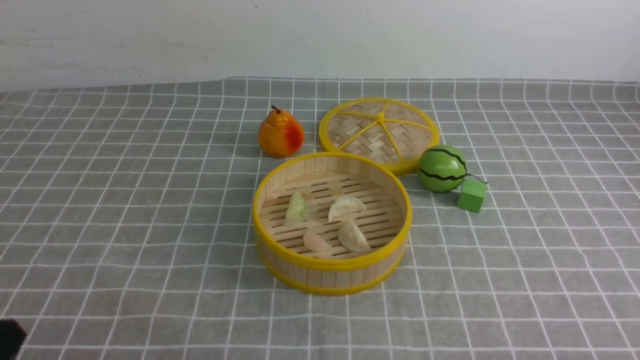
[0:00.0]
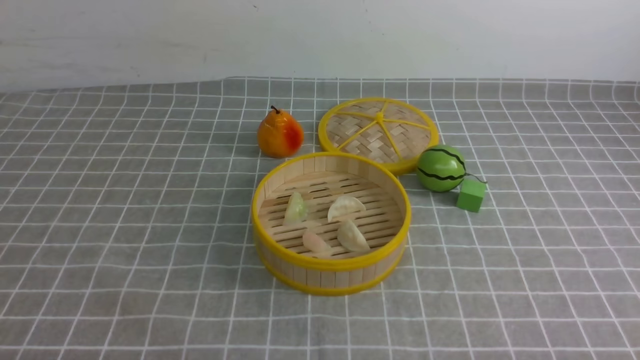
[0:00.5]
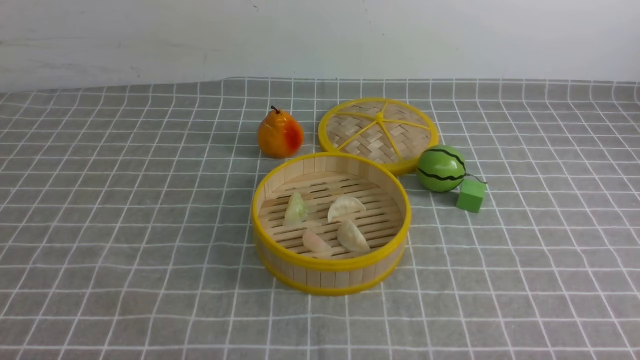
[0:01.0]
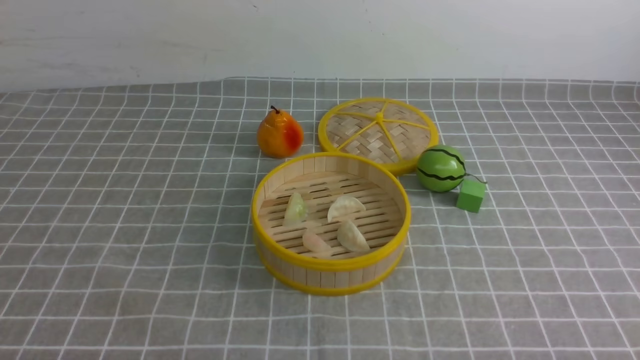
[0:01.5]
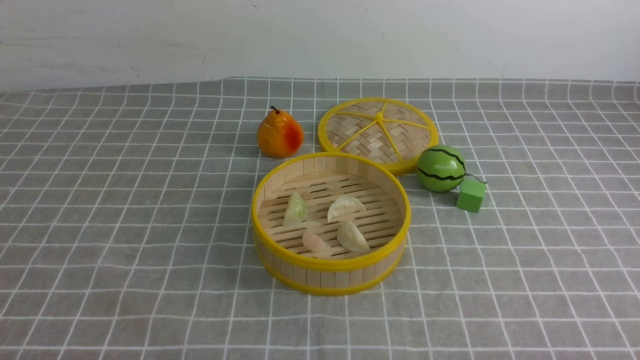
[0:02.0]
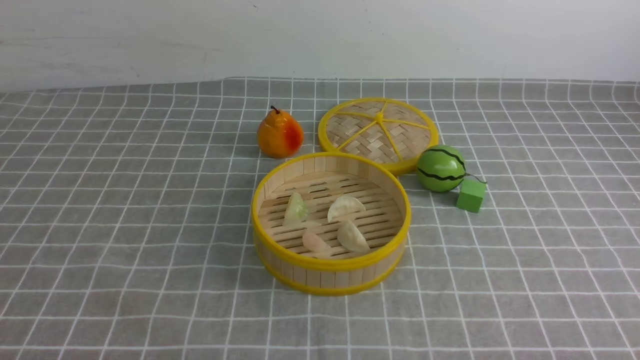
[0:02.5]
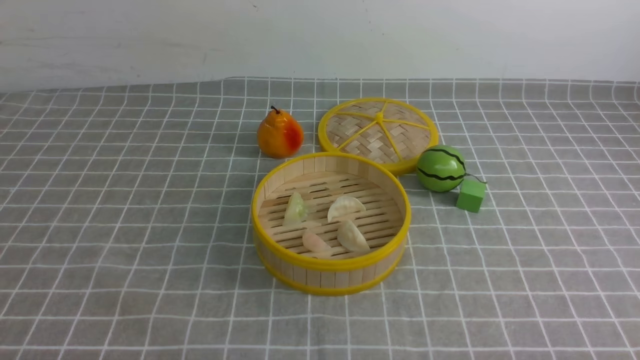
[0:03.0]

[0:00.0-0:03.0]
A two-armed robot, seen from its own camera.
Task of the whole recording: put the dumplings into the steamer on the table with the grey tablecloth.
0:01.5 to 0:03.0: Neither gripper changes place.

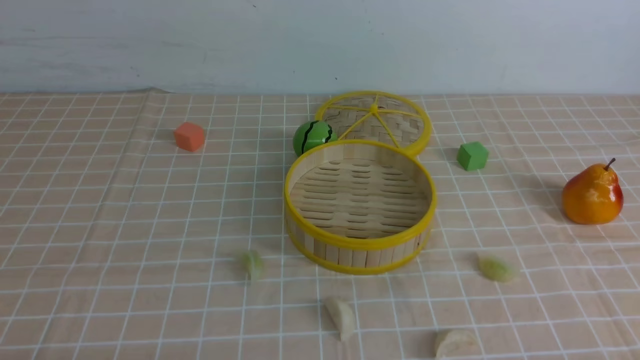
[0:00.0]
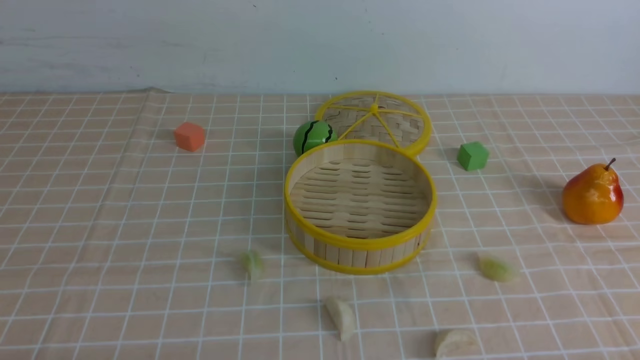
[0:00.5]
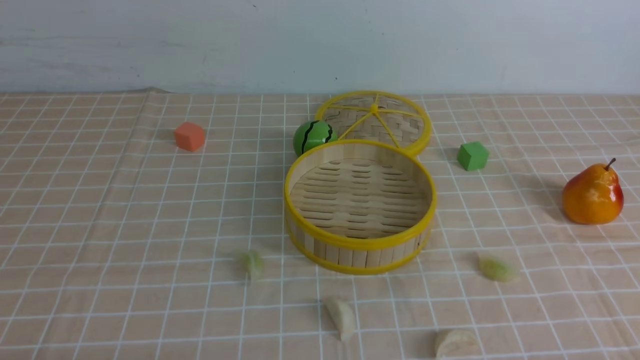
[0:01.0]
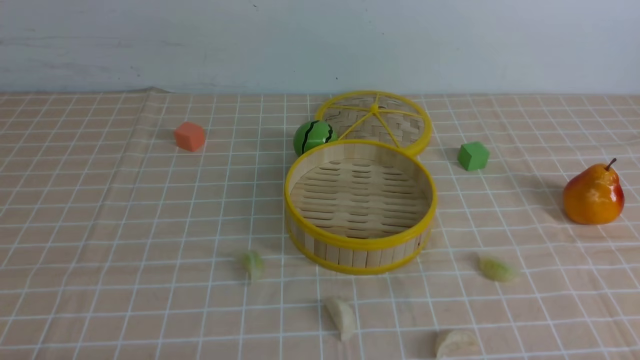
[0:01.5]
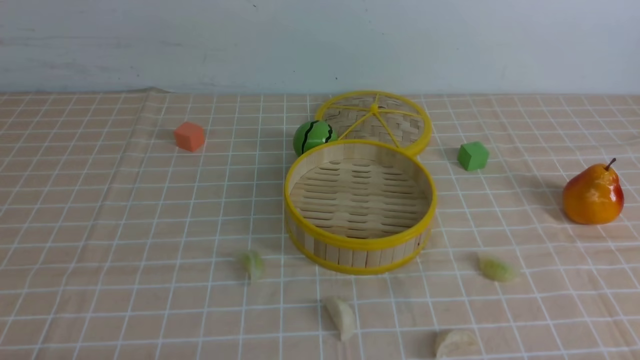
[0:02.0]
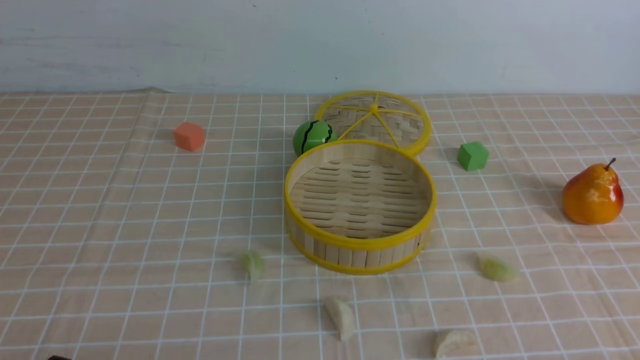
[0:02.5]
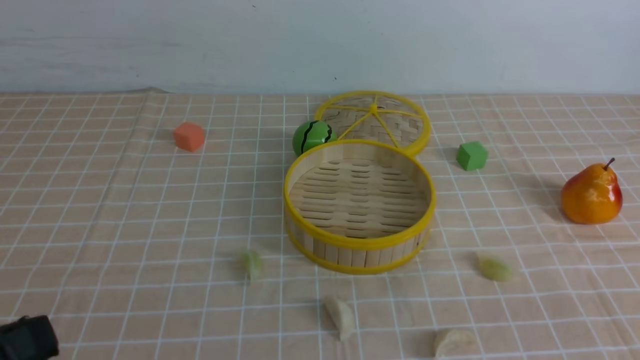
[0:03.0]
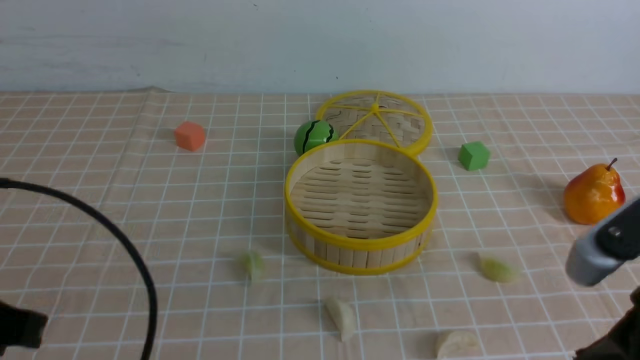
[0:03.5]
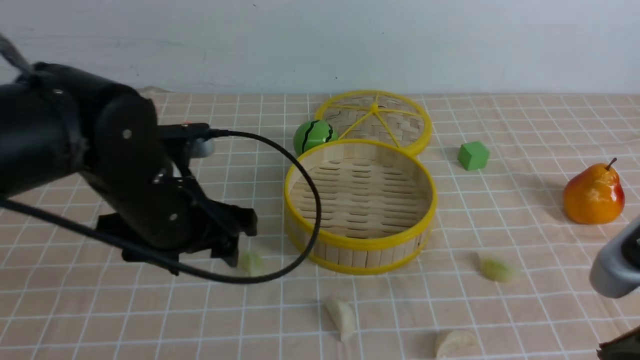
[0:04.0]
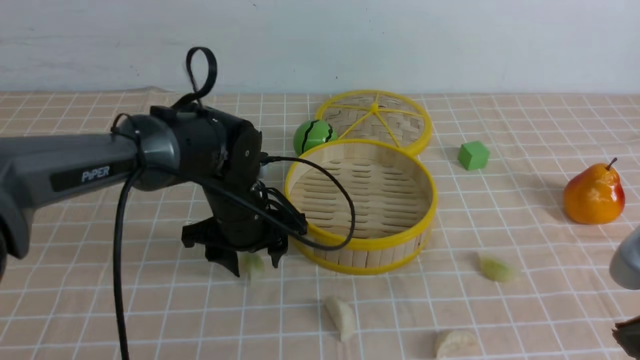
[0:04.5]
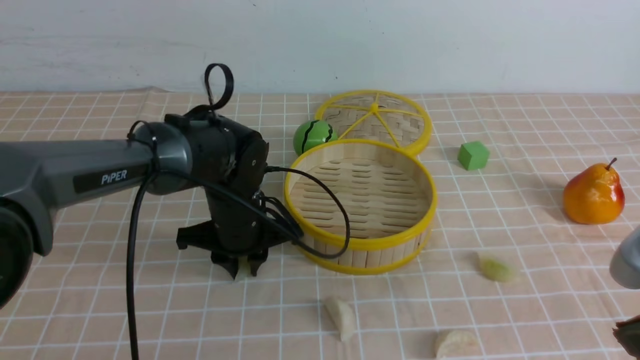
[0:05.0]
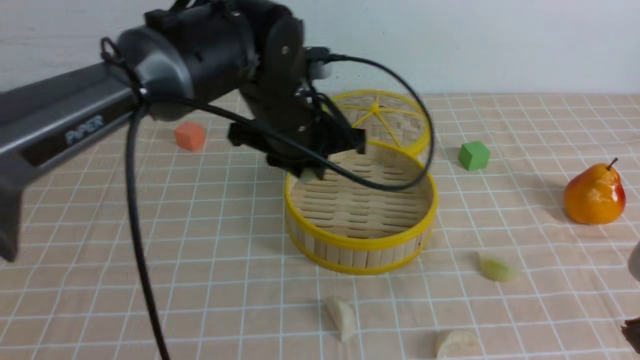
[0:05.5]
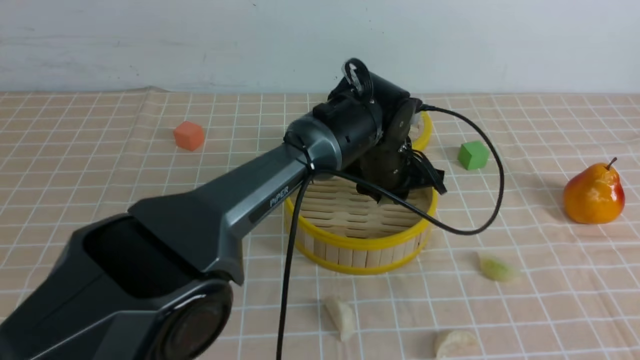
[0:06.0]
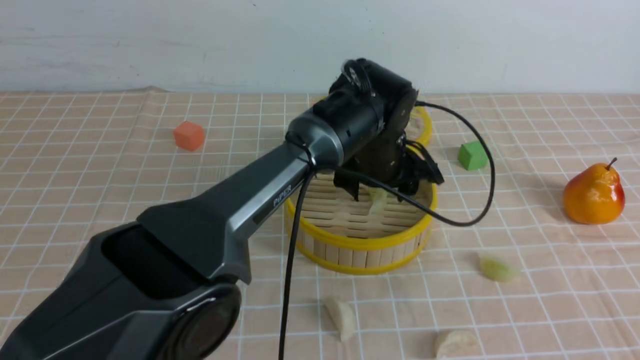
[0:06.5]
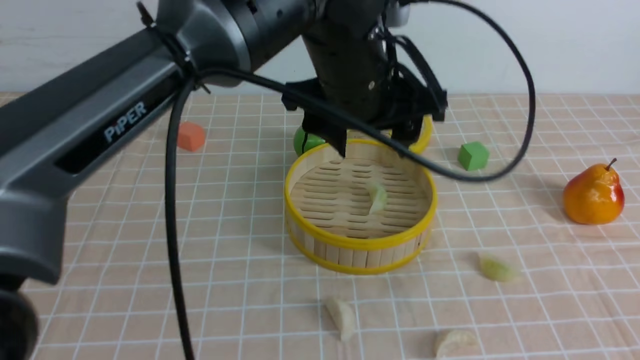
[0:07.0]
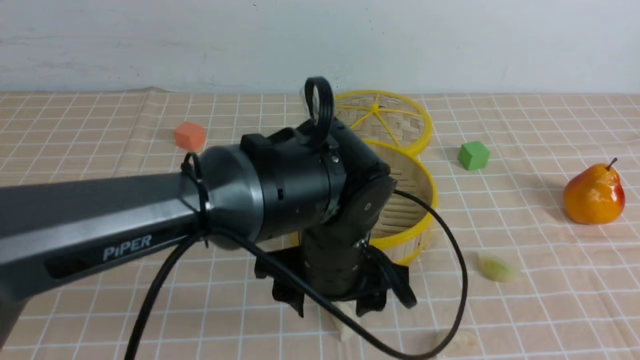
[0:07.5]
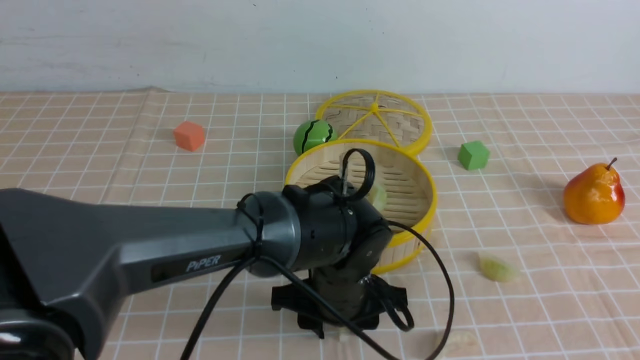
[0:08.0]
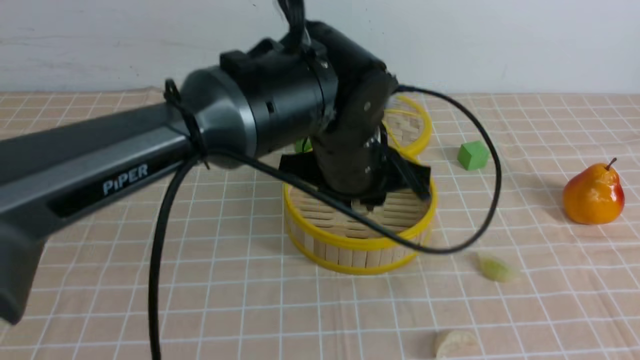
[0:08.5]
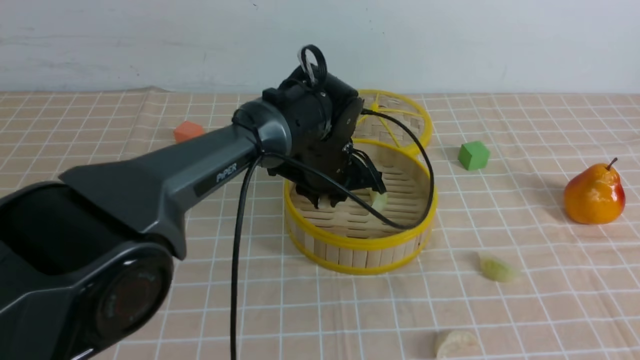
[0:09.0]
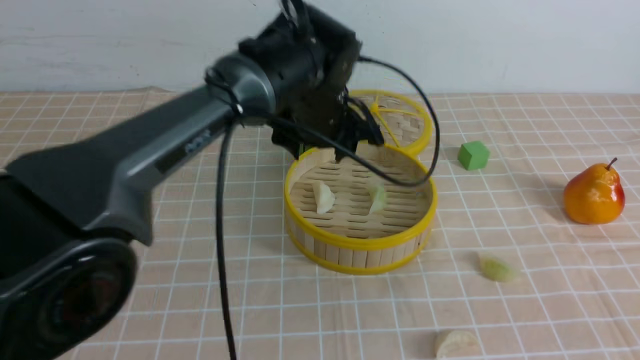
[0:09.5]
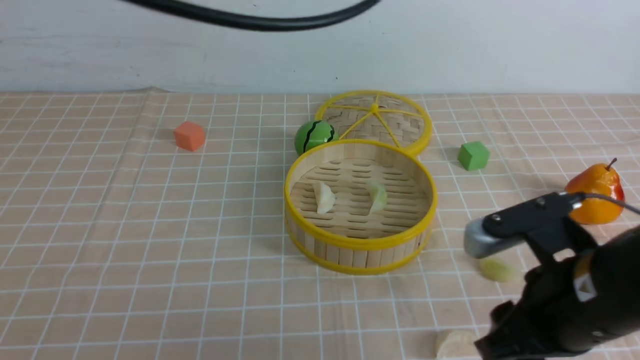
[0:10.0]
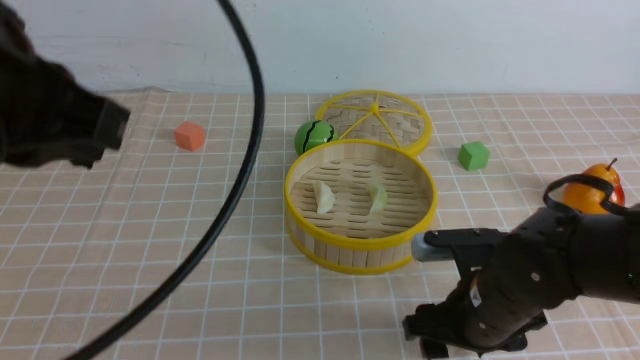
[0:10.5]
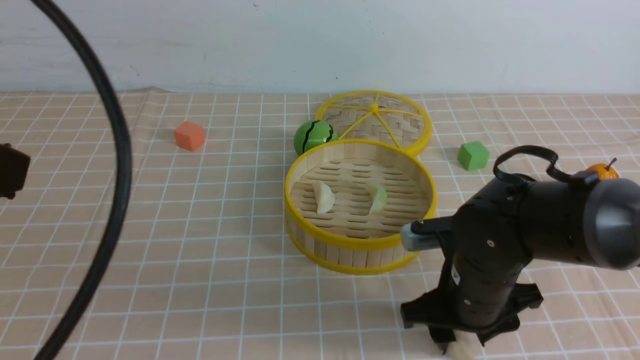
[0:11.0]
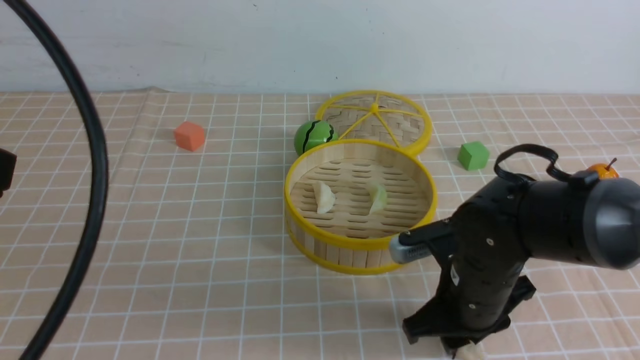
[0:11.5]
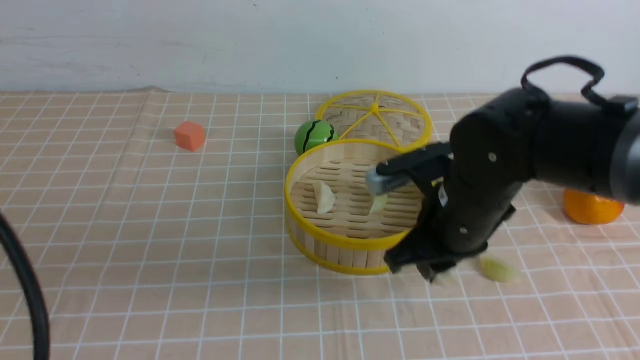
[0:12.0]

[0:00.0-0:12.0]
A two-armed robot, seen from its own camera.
Task of the whole recording: put the dumplings into the steamer on the table with the brown tablecloth.
Step, 0:00.0 to 0:04.5: use the left arm to grab a dumpling.
Step, 0:05.0 to 0:06.5: use the left arm to put the dumpling into the steamer.
Step, 0:07.0 to 0:08.0: use the left arm to grab a dumpling.
Step, 0:08.5 to 0:09.0: use the left arm to put the dumpling into the steamer.
Step, 0:09.5 to 0:11.5: use the right arm to grab a dumpling.
0:02.0 to 0:04.0: The left gripper travels forward, to the right and upward by approximately 30 cm, and opens. Meanwhile the right gripper shifts about 20 cm upward, to the left and forward, and closes.
0:04.0 to 0:06.0: The left gripper heads to the right and forward, covering some 25 cm, and closes up, while the right gripper heads backward, covering approximately 5 cm.
0:06.0 to 0:08.0: The left gripper goes some 15 cm backward, goes upward and returns, some 15 cm each way, and opens, then closes once more.
0:08.0 to 0:10.0: The right gripper heads forward, downward and to the left, covering some 20 cm, and opens. Meanwhile the left gripper swings up and down, approximately 30 cm each way, with 2 reversals, and closes.
0:10.0 to 0:12.0: The right gripper goes some 15 cm forward and to the left, and closes up. The left gripper is displaced backward, to the left and downward by approximately 25 cm.

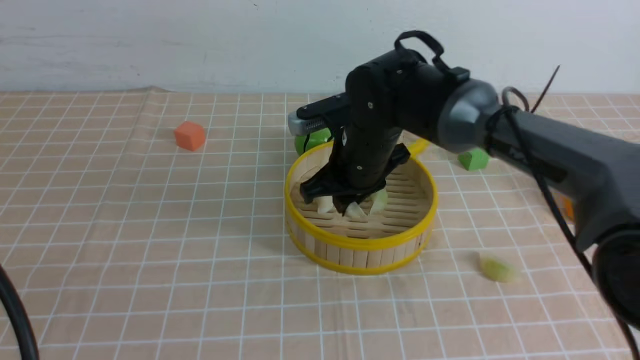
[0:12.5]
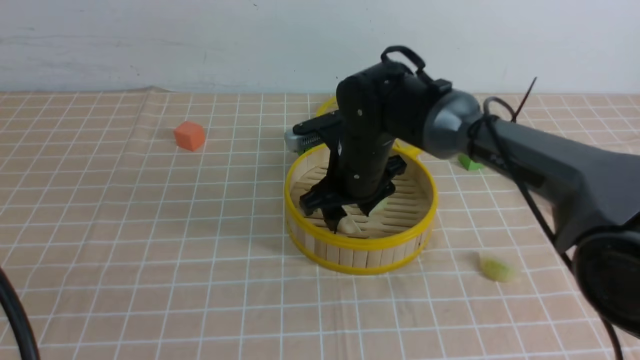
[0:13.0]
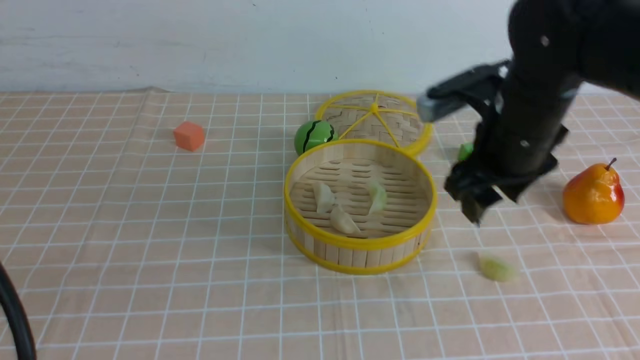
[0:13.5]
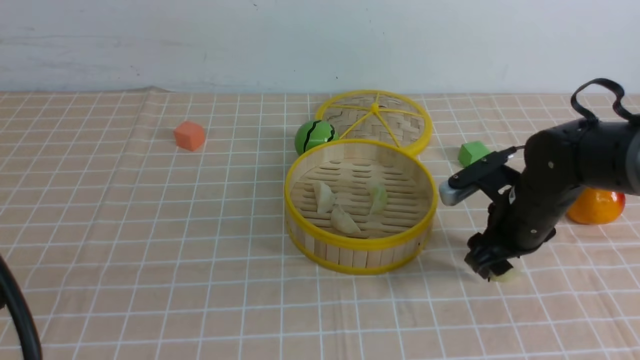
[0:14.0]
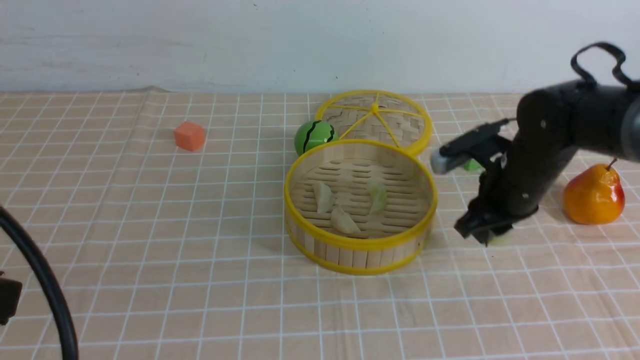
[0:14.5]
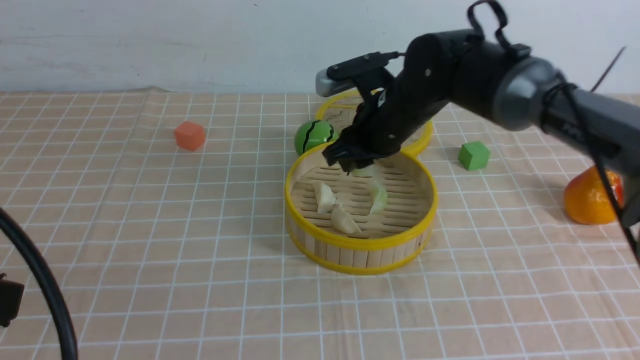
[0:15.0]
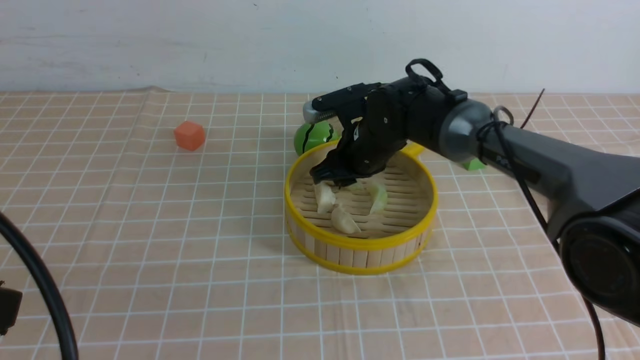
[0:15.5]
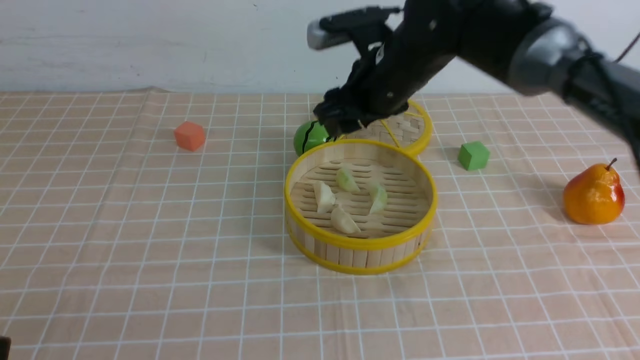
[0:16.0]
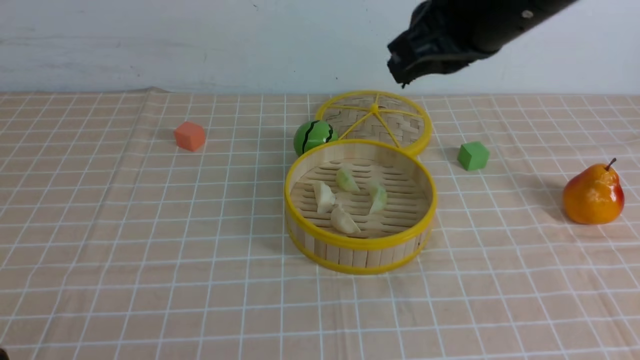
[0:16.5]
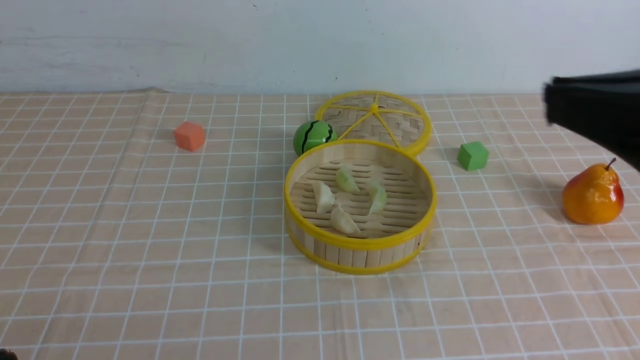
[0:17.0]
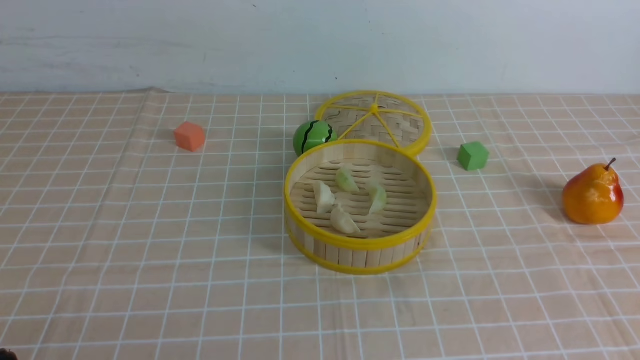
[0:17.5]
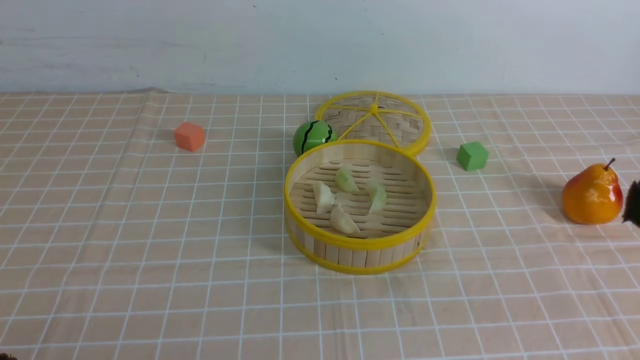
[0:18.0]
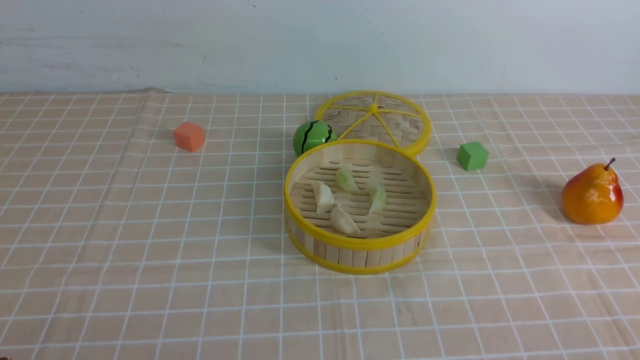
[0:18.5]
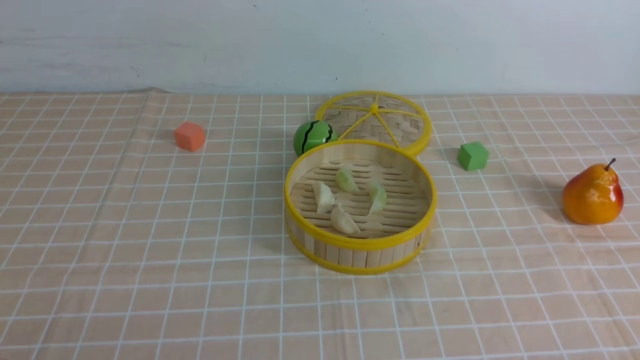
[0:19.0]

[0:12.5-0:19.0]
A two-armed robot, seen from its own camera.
Task of the whole recording: put the dumplings into the steamer on the table with the brown tablecloth.
Step, 0:13.5 to 0:14.0: use the right arm to grab a dumpling.
Step, 0:14.5 to 0:15.5: use the right arm to put the dumpling into the steamer.
0:12.5 to 0:14.5: The right gripper moves to the right, about 15 cm, and opens, then closes again.
0:14.5 to 0:17.0: The left gripper is displaced downward and backward by approximately 10 cm. Meanwhile the right gripper is displaced backward and upward by about 35 cm, and closes its fingers.
0:17.0 to 0:19.0: The right gripper travels downward by roughly 25 cm.
